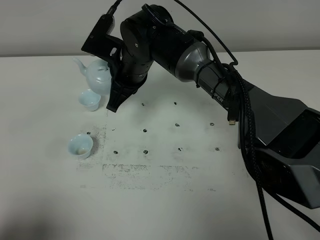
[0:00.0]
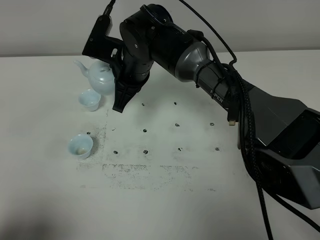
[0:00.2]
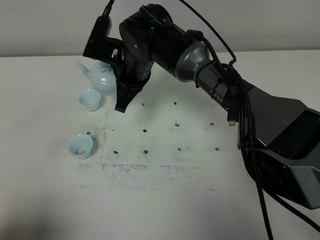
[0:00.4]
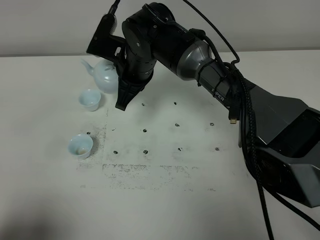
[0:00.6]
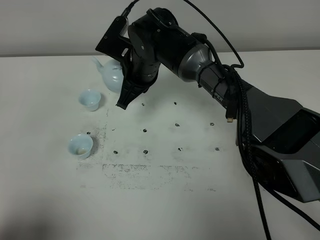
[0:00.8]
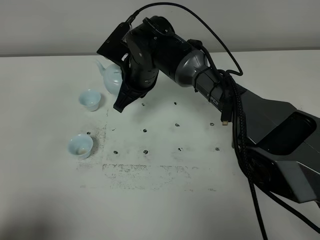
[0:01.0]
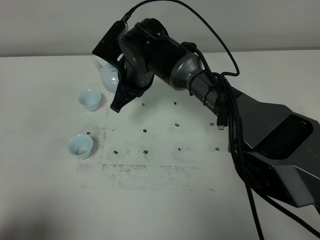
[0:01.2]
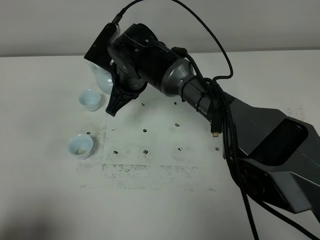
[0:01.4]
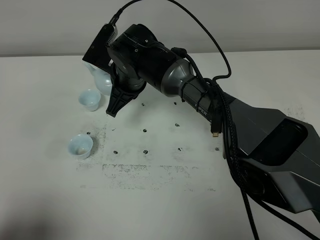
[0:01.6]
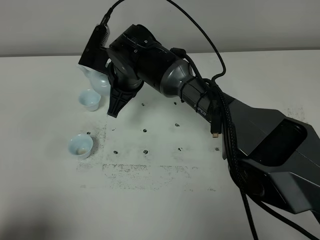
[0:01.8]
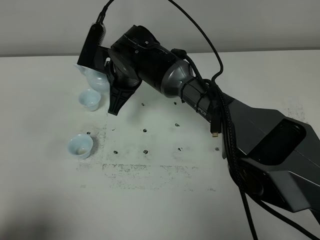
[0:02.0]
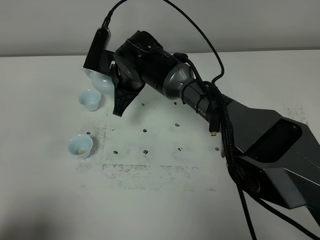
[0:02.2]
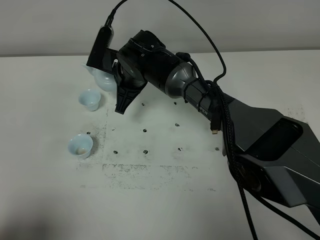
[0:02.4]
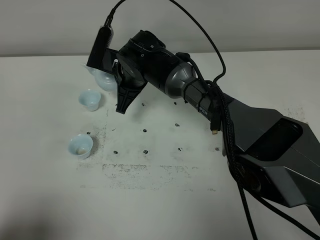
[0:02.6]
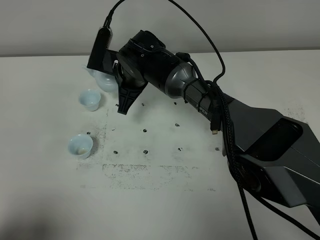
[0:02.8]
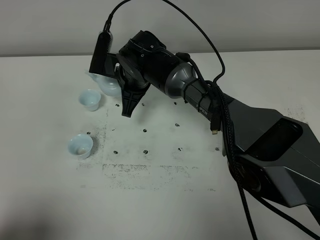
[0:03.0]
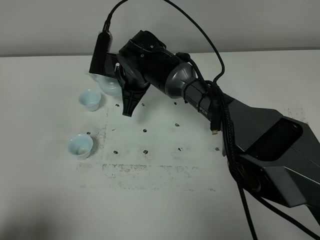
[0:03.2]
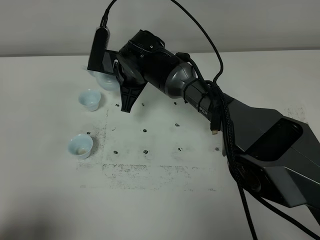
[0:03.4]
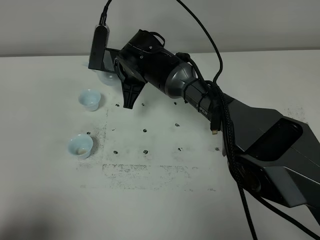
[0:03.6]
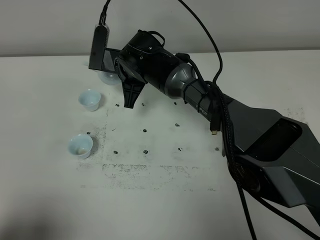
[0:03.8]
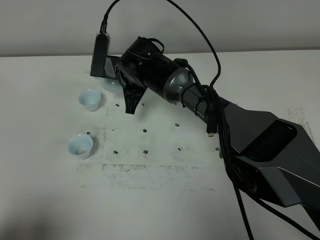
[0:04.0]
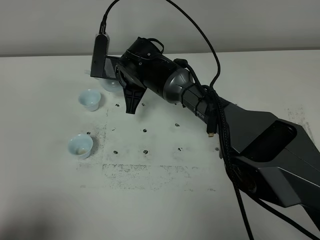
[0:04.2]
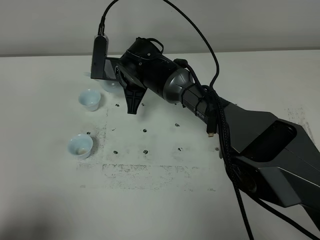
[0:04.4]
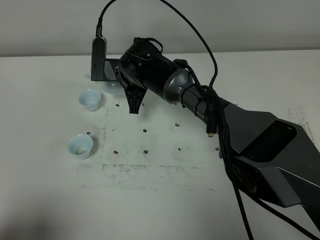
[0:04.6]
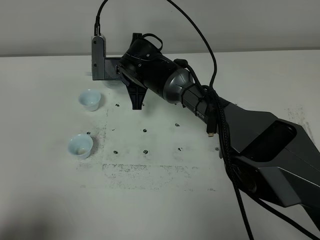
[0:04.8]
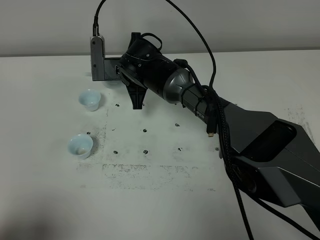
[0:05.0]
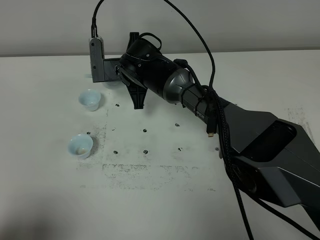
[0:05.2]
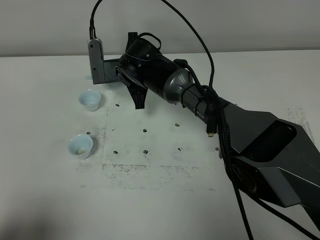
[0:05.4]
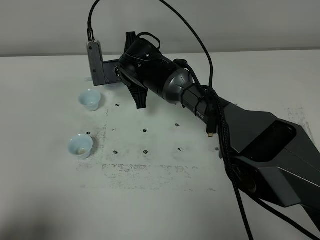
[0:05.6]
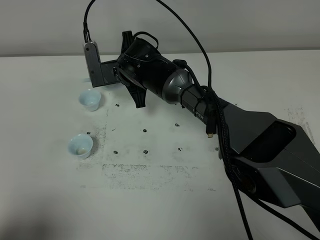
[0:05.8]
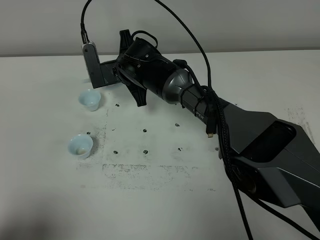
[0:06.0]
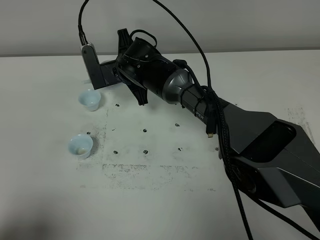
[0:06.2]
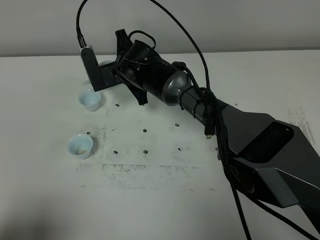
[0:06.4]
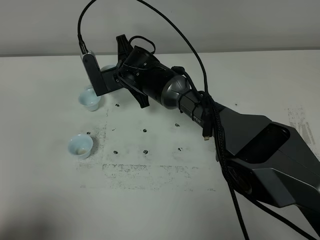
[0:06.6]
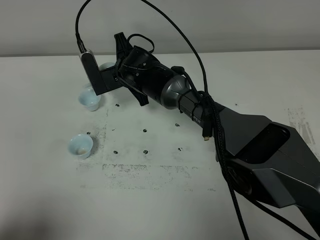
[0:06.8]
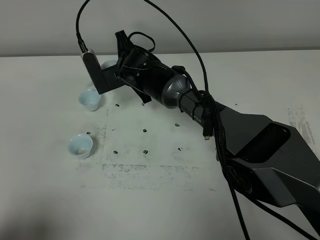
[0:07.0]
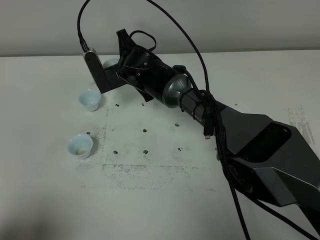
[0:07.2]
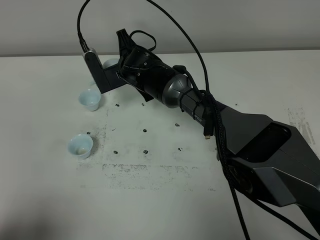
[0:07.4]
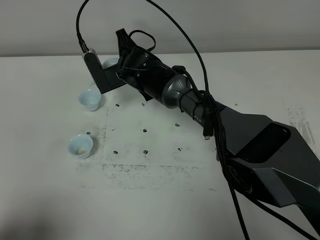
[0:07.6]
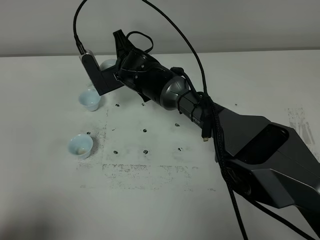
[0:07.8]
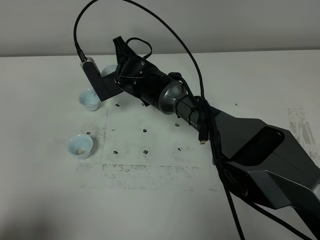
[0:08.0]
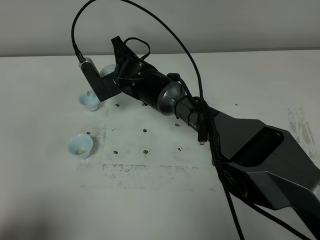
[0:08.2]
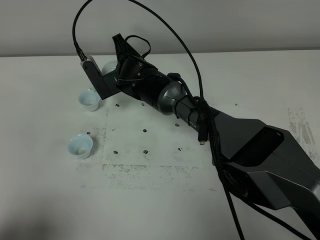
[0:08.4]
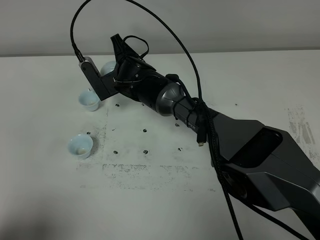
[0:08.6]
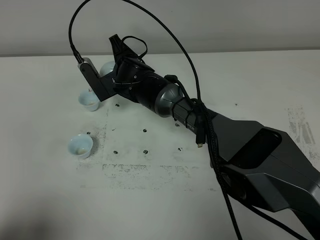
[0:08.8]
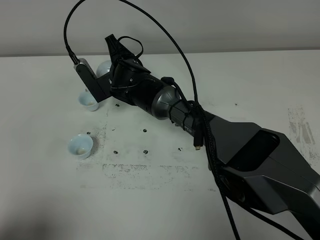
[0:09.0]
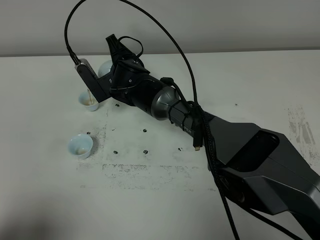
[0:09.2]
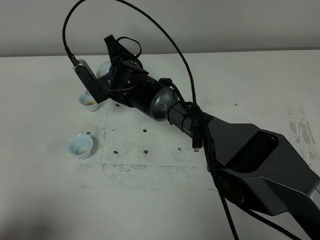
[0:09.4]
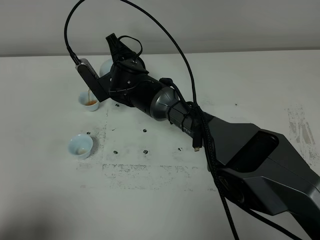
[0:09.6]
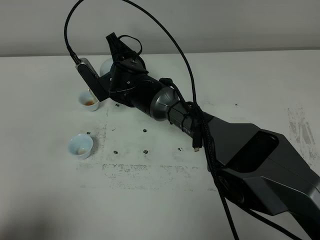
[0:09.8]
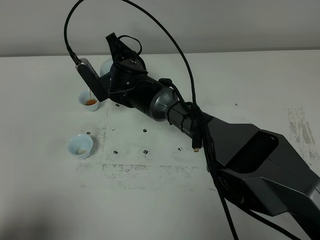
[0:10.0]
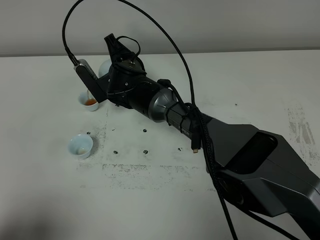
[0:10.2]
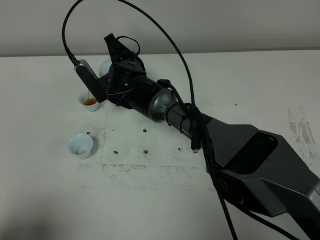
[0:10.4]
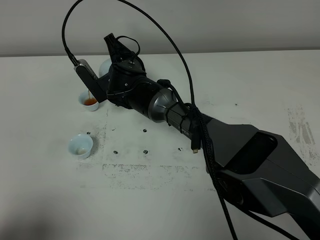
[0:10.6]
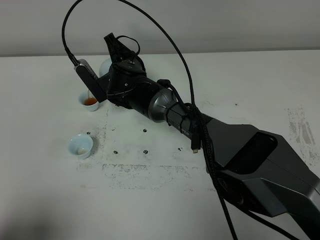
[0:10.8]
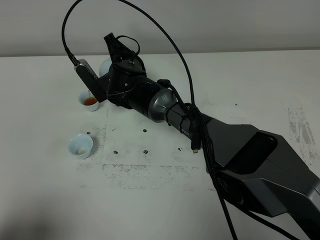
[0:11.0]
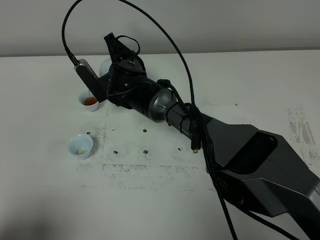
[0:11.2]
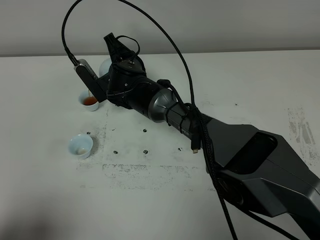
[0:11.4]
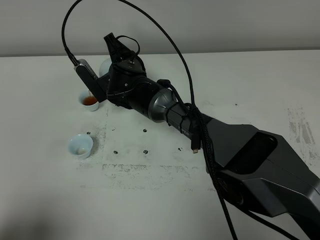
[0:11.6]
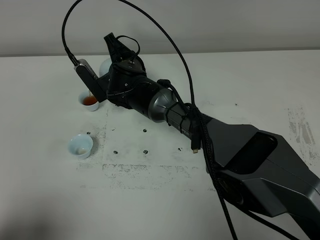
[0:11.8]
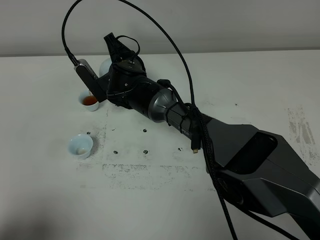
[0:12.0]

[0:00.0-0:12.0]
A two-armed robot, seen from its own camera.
Task of the whole recording: grasp the blue porcelain teapot and pour the tea into the two blue porcelain teacups one by one, put the blue porcelain teapot back in its original place.
0:01.6 to 0:03.0: There are only small adjustments of the grippers.
0:03.0 to 0:04.4: The grippers move only a little.
0:06.0 to 0:07.6: The grippers make only small movements.
0:07.6 to 0:09.0: The grippers move only a little.
0:09.0 to 0:10.4: The two grippers keep their place.
0:10.4 to 0:12.0: The two grippers keep their place.

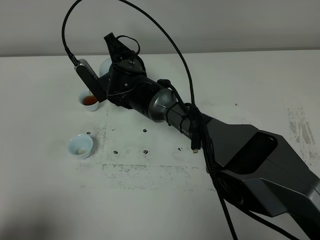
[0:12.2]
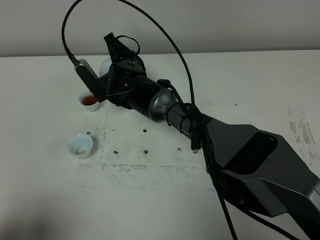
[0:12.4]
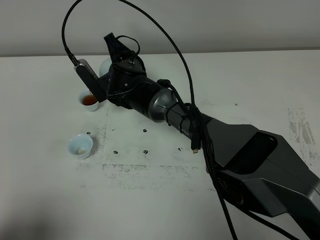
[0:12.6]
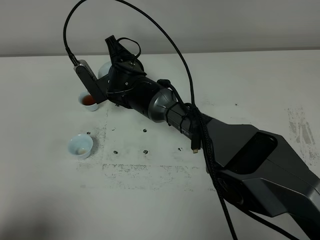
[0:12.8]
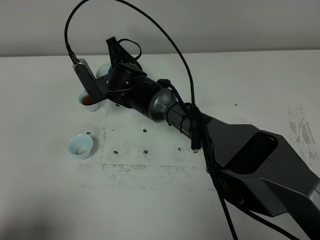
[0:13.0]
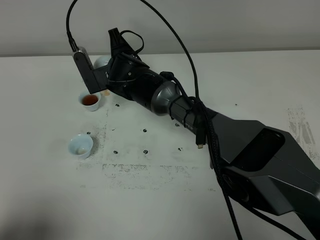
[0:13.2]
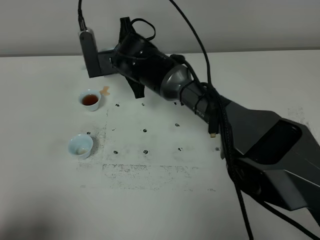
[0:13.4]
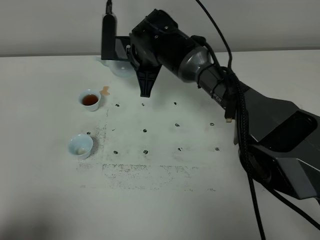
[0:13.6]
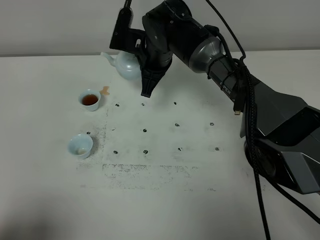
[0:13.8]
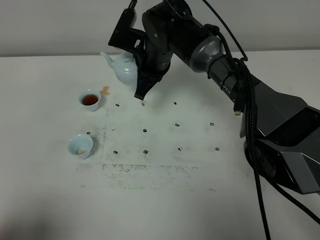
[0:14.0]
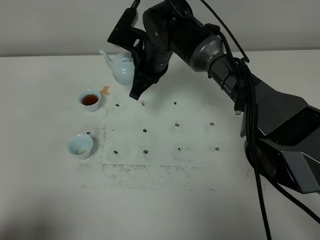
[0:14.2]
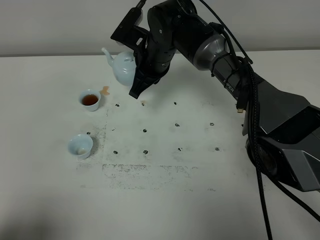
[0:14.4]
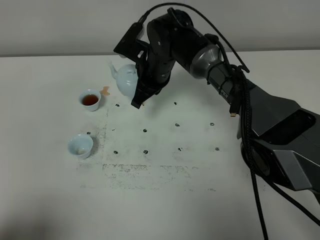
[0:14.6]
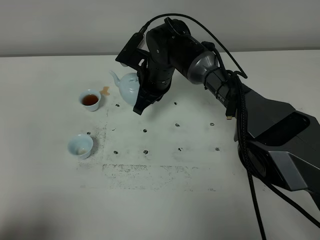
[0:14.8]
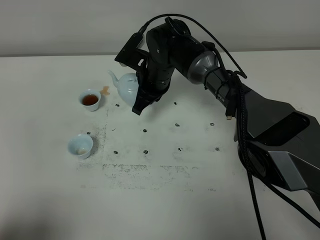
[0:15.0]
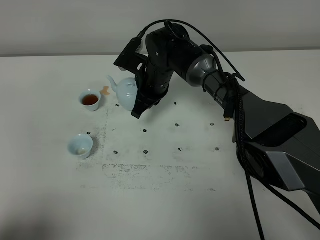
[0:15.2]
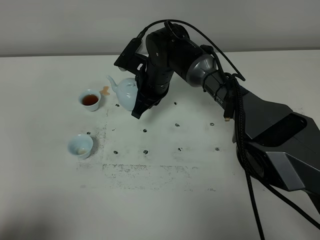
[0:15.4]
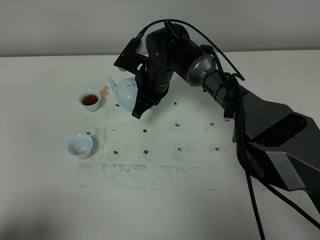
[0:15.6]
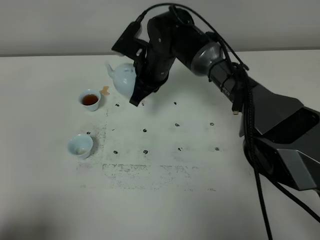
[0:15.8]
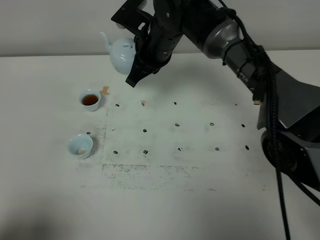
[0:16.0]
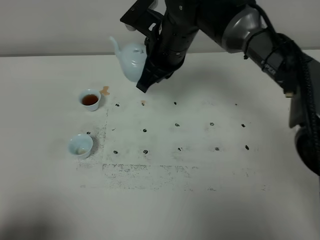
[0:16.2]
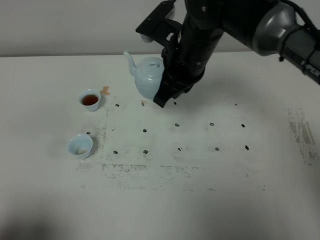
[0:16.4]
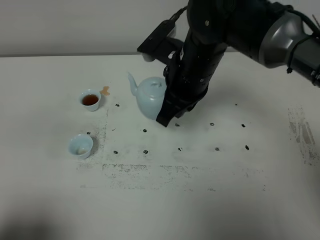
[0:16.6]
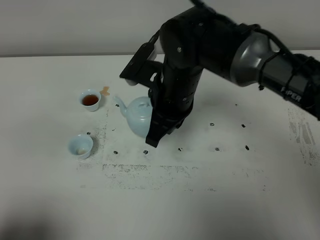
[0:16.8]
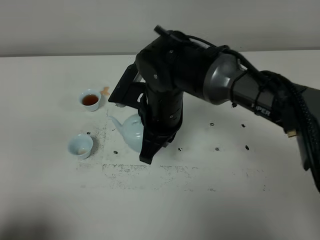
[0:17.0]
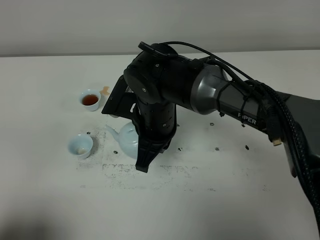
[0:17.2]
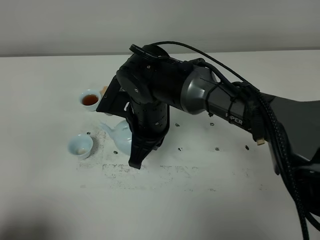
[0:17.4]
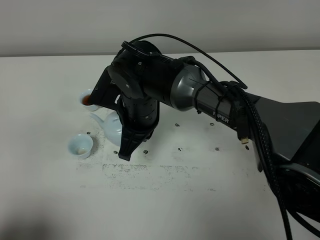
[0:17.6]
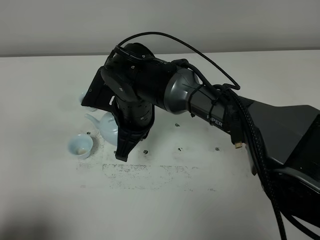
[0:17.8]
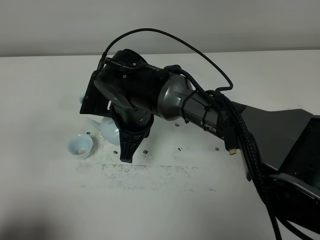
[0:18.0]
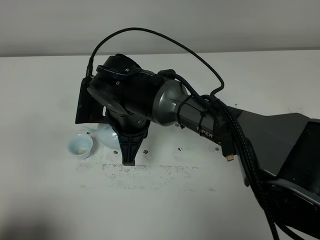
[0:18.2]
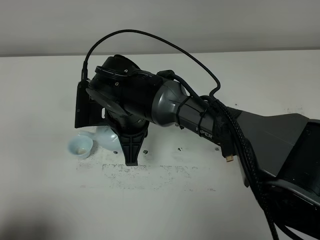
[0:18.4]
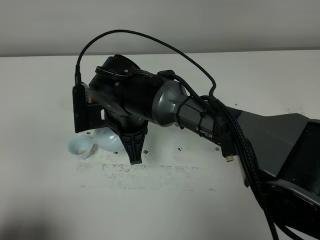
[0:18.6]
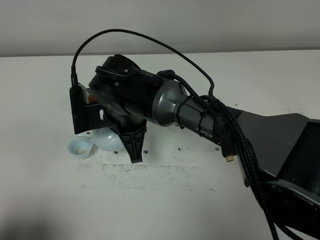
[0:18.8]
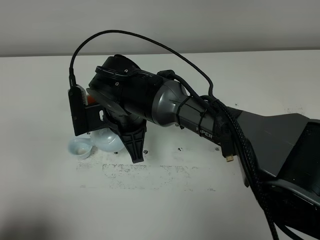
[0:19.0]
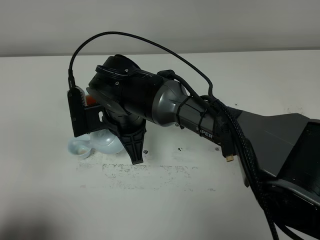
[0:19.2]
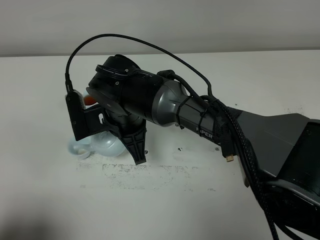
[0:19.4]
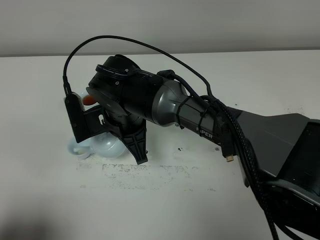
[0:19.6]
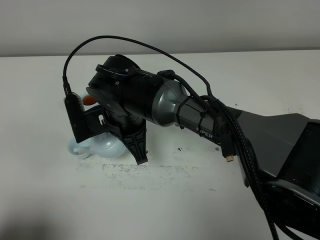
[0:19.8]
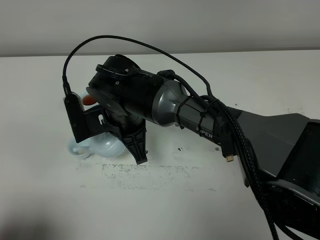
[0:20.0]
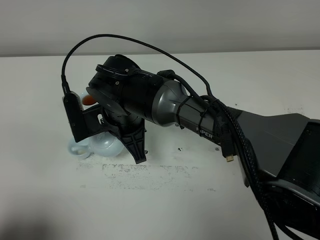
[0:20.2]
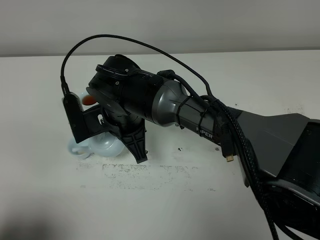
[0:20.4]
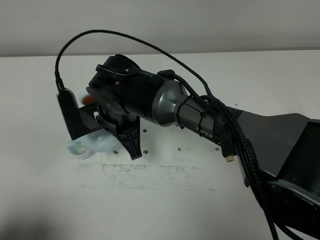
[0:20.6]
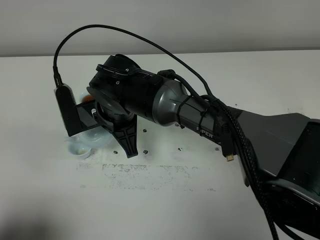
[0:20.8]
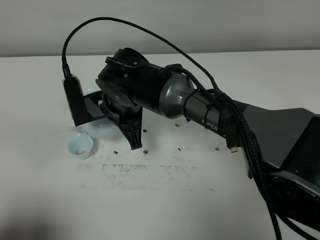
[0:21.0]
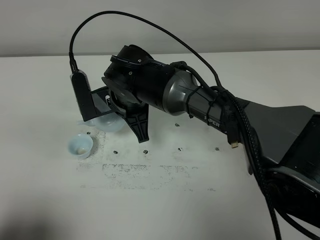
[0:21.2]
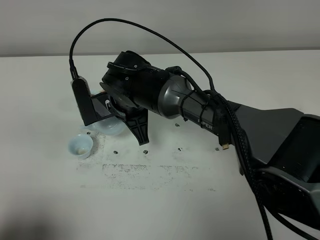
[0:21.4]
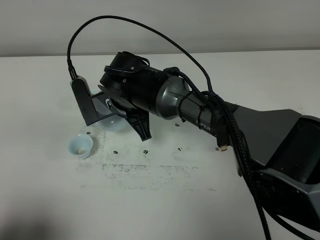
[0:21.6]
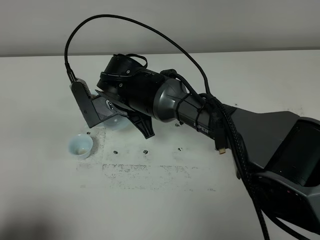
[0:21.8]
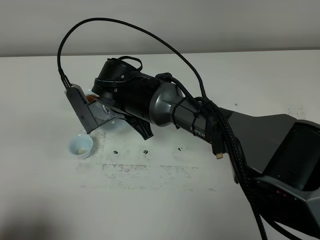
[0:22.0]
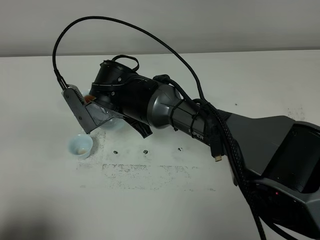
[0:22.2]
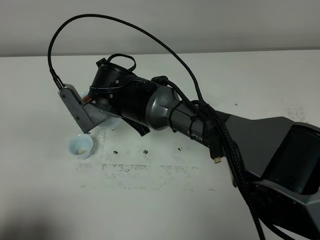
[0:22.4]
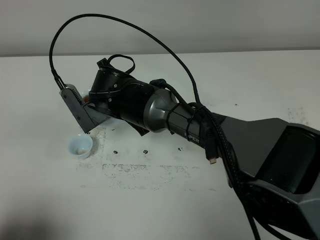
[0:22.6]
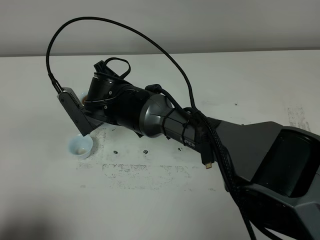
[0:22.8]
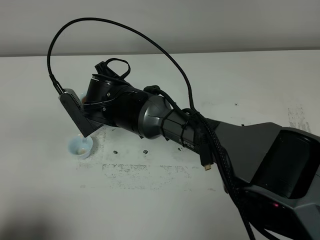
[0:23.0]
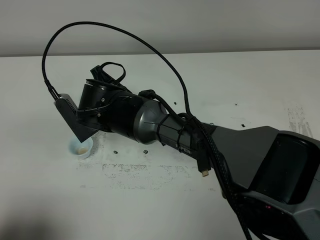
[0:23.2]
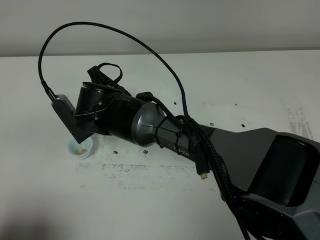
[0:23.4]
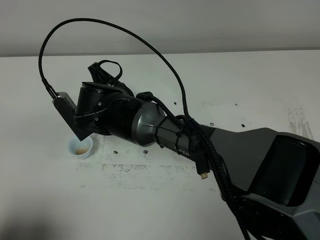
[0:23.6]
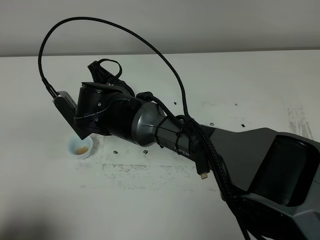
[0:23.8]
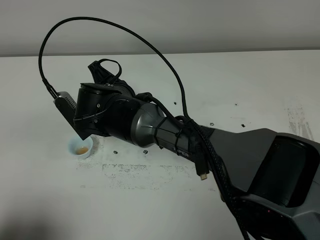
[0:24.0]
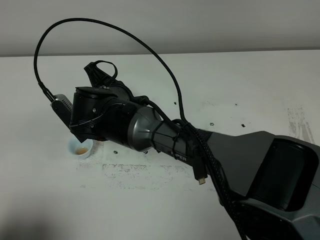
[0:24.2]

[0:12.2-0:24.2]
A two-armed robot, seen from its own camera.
Task of the whole recording: grasp the blue porcelain teapot and pour the tea into the two blue porcelain teacups one by one, put the blue porcelain teapot back in its original place.
0:12.2 to 0:13.8: The right gripper travels to the right and upward by approximately 10 cm.
0:13.8 to 0:15.2: The right gripper goes roughly 5 cm downward.
0:15.2 to 0:16.6: The right gripper moves upward, backward and to the right, approximately 15 cm.
0:16.6 to 0:18.2: The right gripper heads to the left and downward, covering roughly 15 cm.
0:19.8 to 0:21.2: The grippers make only small movements.
